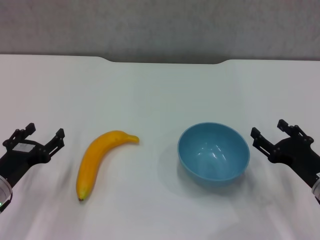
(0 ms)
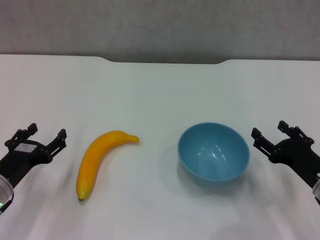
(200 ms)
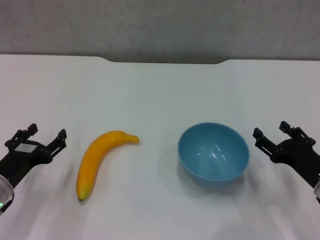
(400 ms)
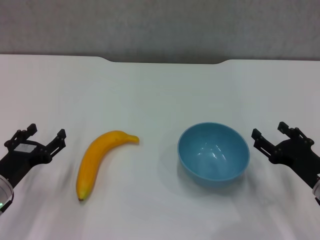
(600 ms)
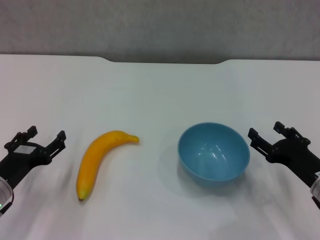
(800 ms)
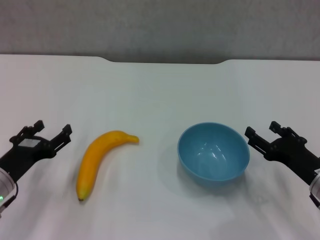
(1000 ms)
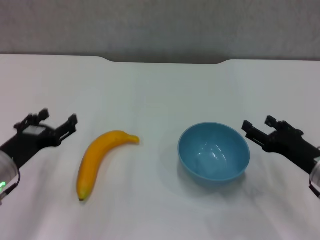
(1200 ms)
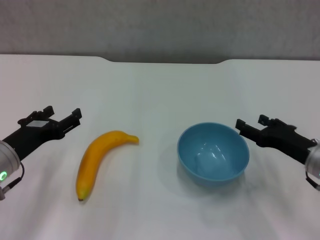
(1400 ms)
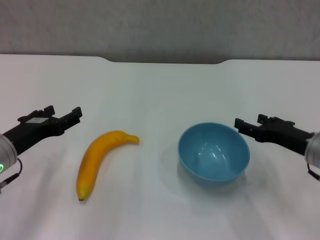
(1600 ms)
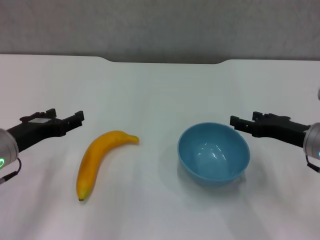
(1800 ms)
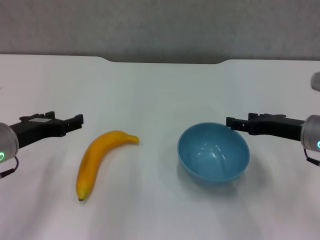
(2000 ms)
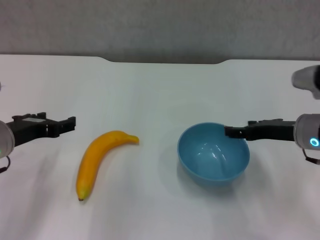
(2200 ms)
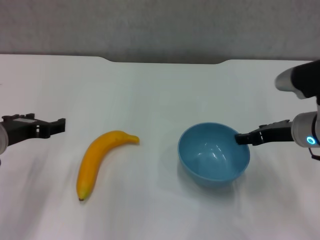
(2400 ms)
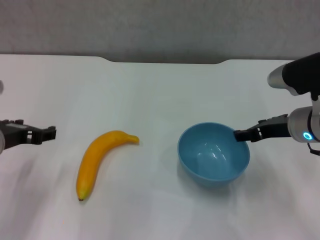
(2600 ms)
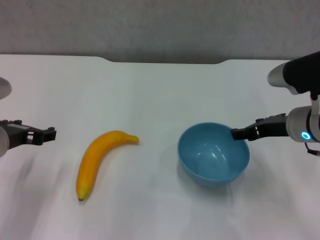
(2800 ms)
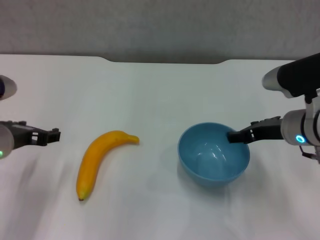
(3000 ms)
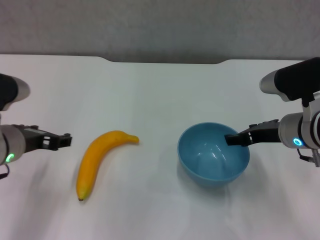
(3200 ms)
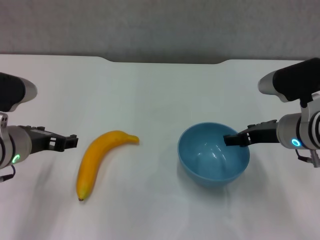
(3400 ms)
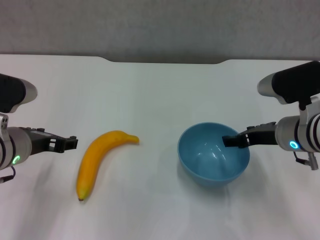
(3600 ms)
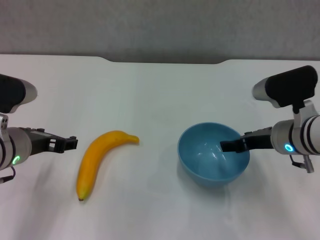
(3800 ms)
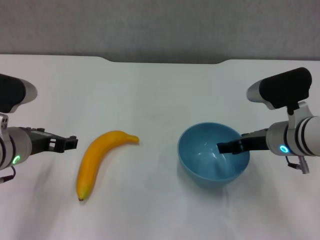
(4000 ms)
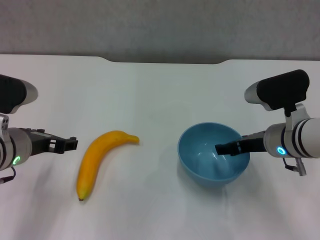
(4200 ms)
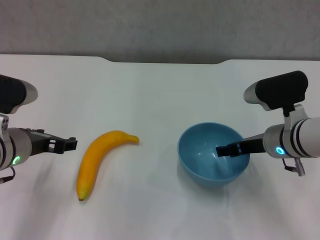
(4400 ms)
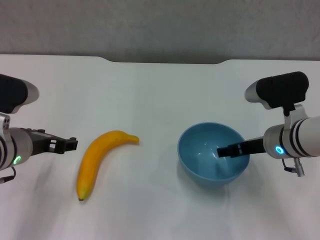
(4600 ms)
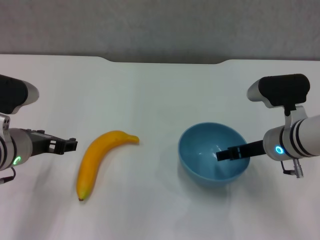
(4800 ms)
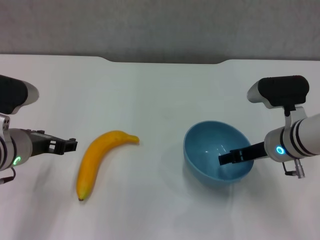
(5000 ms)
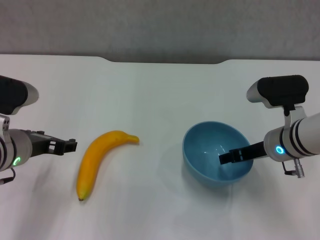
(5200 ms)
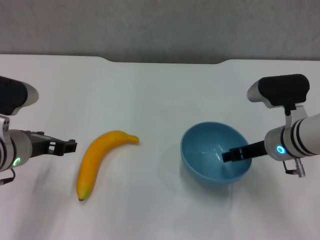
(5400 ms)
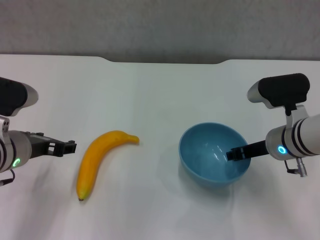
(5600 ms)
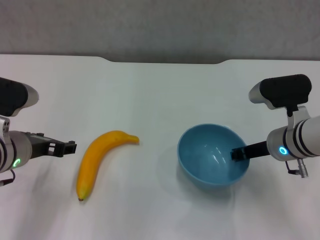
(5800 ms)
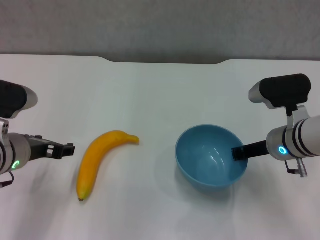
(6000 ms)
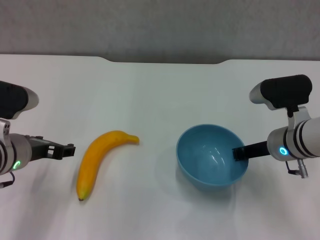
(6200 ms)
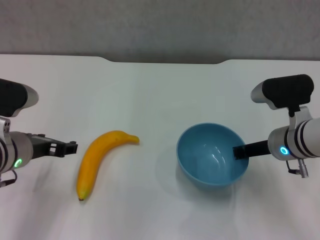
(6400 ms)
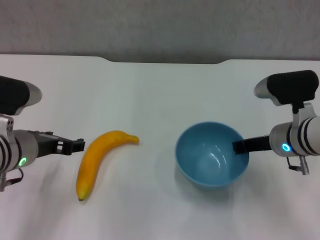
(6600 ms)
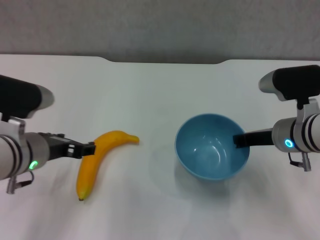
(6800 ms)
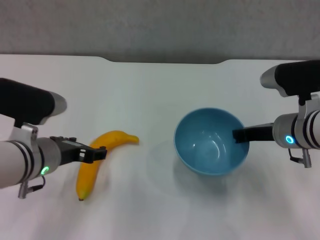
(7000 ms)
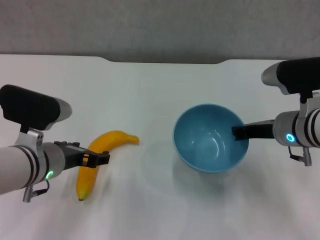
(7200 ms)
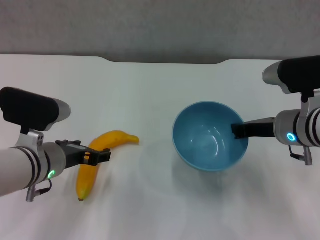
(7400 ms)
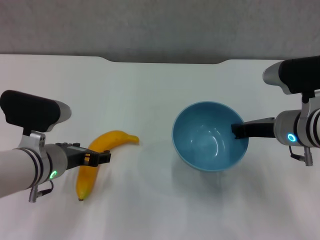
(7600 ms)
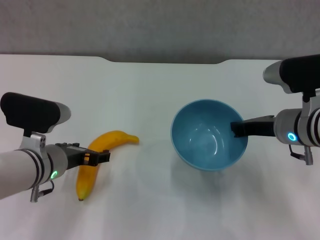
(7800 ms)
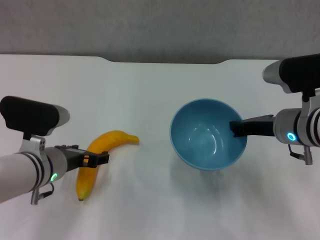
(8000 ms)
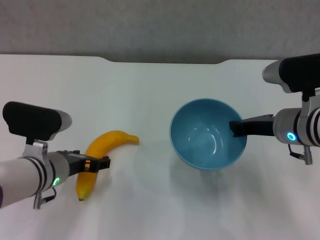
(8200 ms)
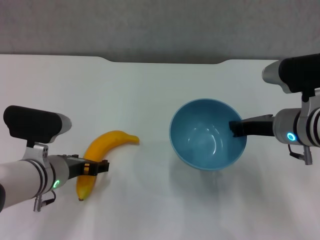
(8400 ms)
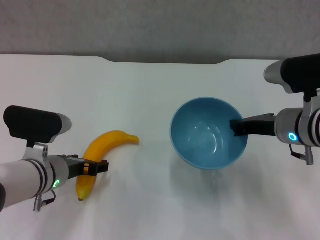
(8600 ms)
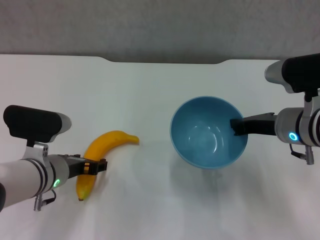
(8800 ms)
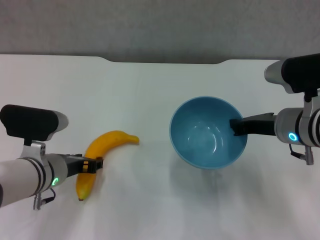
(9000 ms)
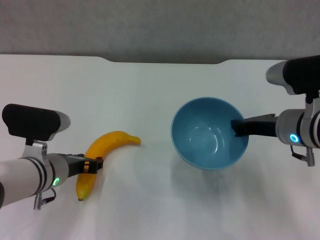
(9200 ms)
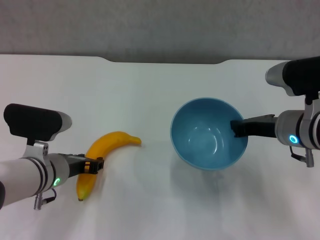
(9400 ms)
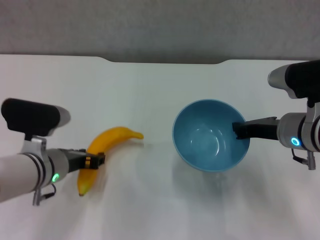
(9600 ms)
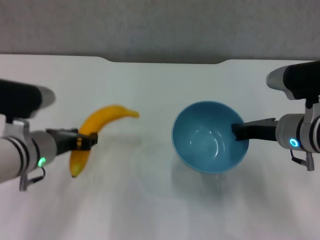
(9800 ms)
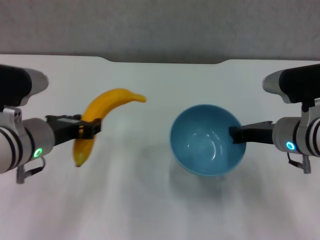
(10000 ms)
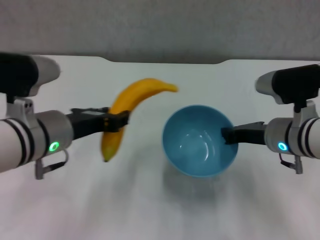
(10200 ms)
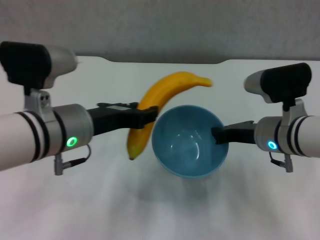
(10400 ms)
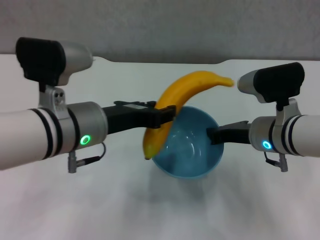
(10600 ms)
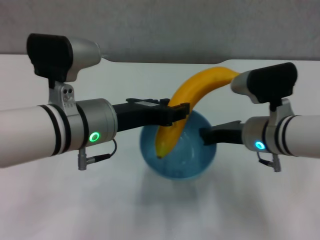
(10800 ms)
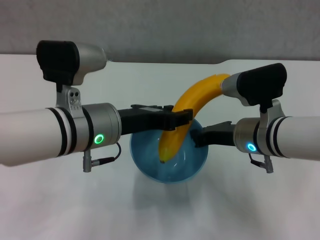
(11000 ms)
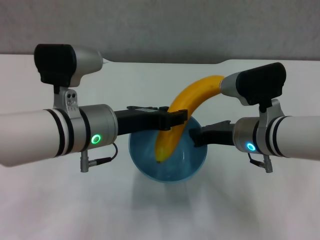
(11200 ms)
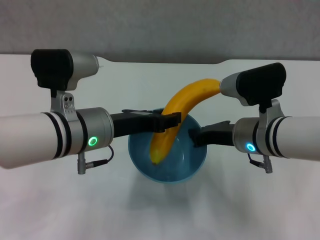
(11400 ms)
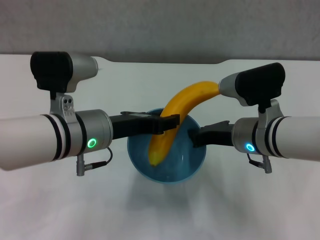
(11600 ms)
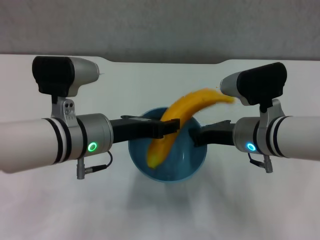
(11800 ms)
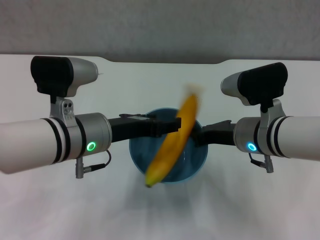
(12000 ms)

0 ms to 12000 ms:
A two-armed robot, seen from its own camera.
Step, 0 ms to 6400 ms: Grasp the blue bowl with right gripper.
Step, 6600 ms to 7800 ms: Lift the blue bowl with right gripper.
Step, 8000 ms to 9400 ms: Grasp the banana with left gripper.
0 ms to 1600 ms: The right gripper shifts approximately 5 cm forward, while the left gripper is displaced upward by roughly 5 cm.
1600 ms to 3000 ms: The right gripper moves approximately 5 cm.
3000 ms to 4400 ms: The grippers make only small movements.
4400 ms to 6000 ms: The right gripper closes.
6000 ms to 7600 ms: The left gripper shifts by about 5 cm.
7600 ms to 9000 ms: The grippers move only a little.
9000 ms to 10400 ms: The left gripper moves upward, some 10 cm, and closes its fingers.

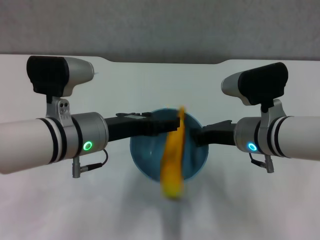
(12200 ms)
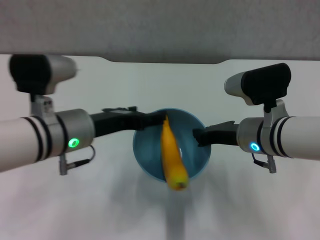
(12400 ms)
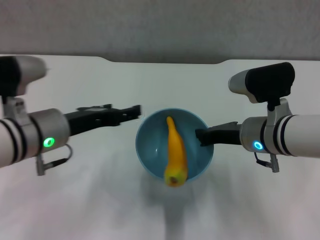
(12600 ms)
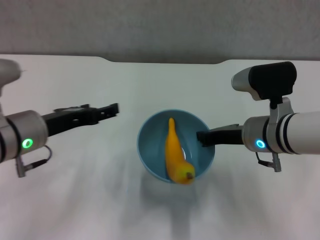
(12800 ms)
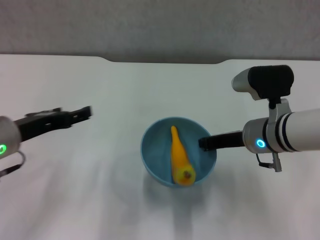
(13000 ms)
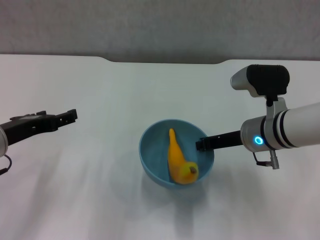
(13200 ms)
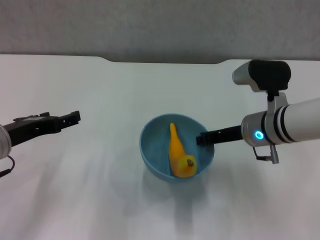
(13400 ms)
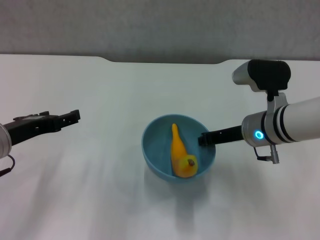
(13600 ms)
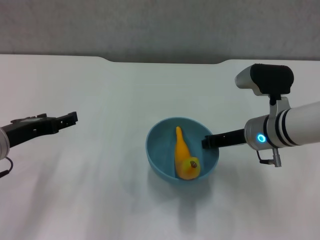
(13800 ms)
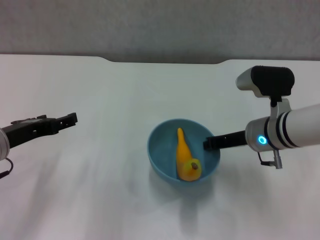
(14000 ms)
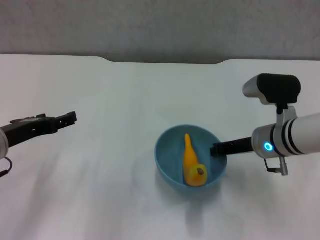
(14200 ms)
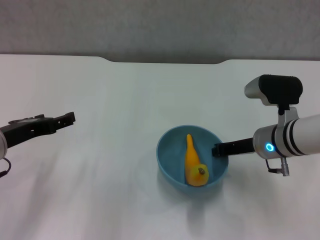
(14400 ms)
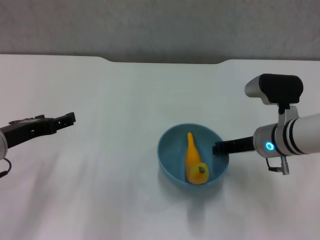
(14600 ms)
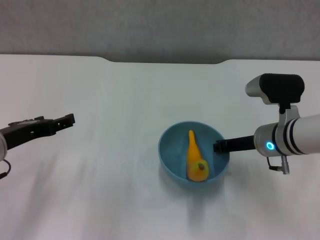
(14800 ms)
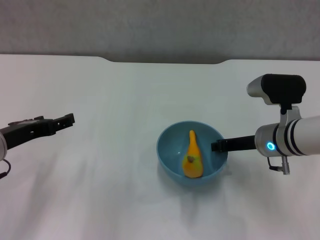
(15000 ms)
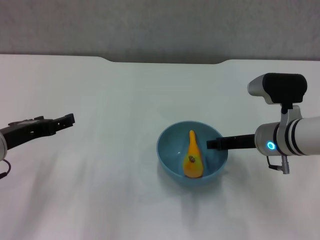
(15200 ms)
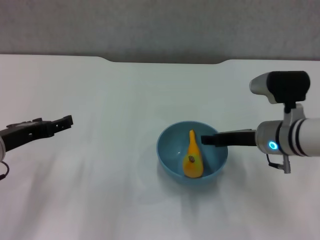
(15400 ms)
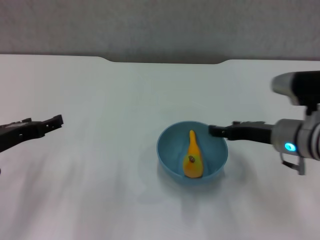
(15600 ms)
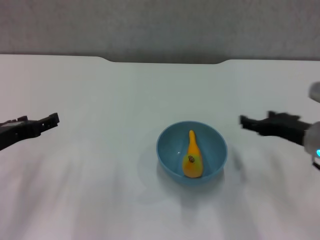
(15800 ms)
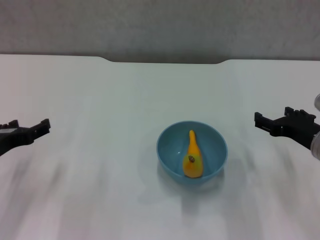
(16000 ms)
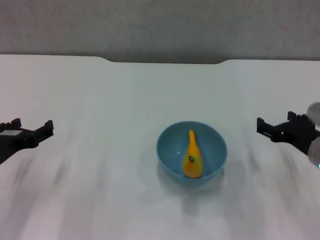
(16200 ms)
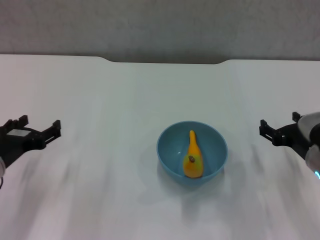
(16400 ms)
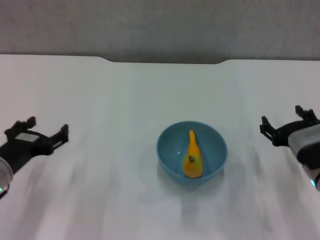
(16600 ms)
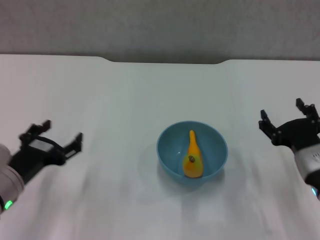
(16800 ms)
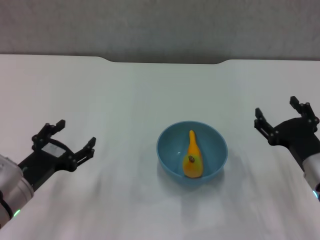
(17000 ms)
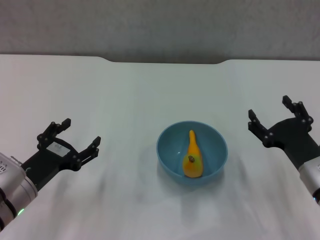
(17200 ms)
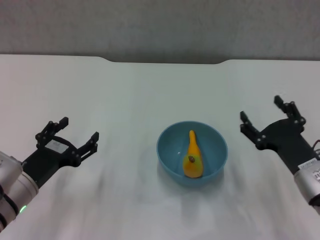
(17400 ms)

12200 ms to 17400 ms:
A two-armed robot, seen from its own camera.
Step, 12400 ms to 15600 ms: Place the bowl on the table with right gripper.
12200 ms to 14000 ms: The left gripper goes about 15 cm to the left, and opens up; the right gripper shifts by approximately 5 cm.
14000 ms to 15600 ms: The right gripper moves roughly 5 cm, and opens its fingers.
15600 ms to 17400 ms: The left gripper shifts roughly 10 cm downward, while the right gripper moves backward and downward, some 10 cm.

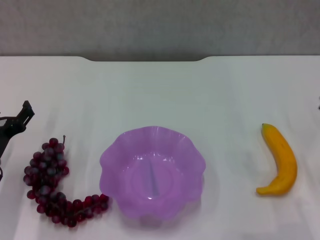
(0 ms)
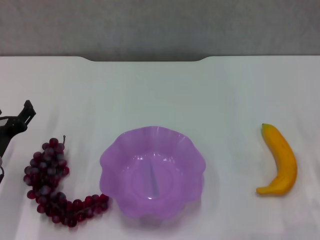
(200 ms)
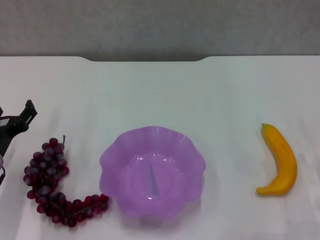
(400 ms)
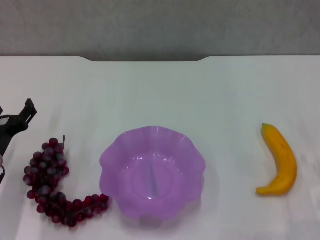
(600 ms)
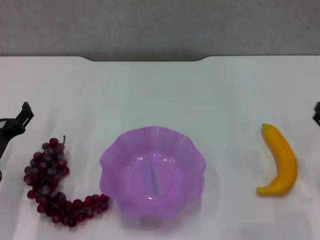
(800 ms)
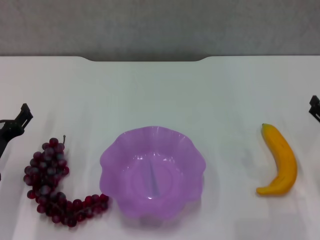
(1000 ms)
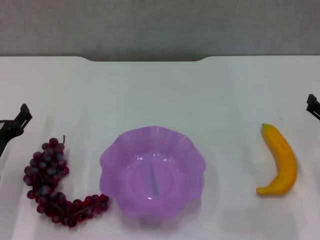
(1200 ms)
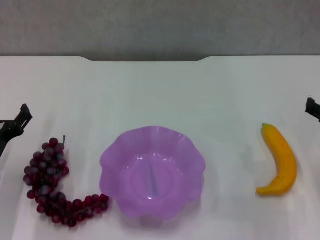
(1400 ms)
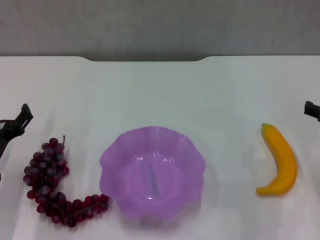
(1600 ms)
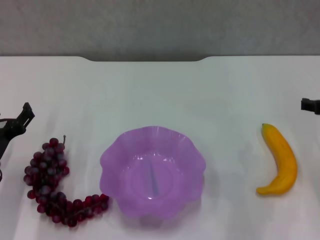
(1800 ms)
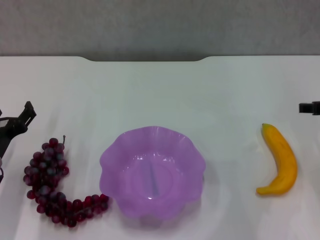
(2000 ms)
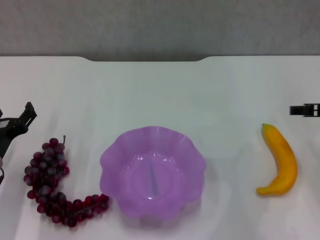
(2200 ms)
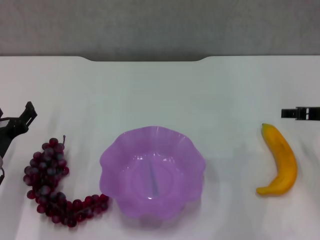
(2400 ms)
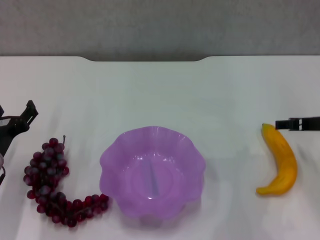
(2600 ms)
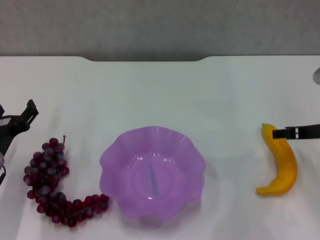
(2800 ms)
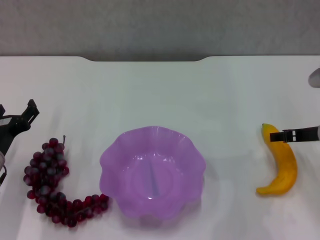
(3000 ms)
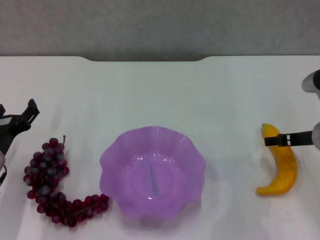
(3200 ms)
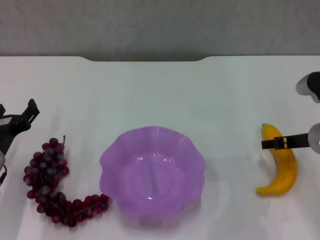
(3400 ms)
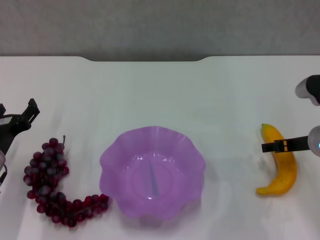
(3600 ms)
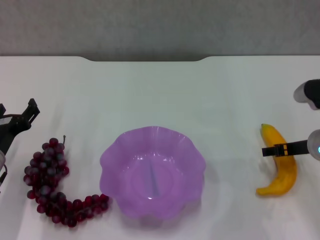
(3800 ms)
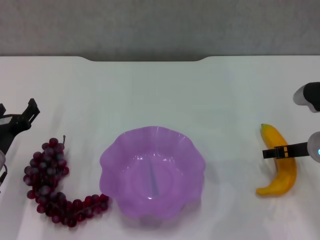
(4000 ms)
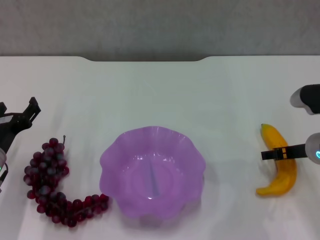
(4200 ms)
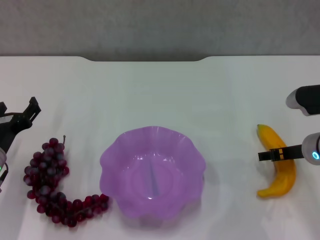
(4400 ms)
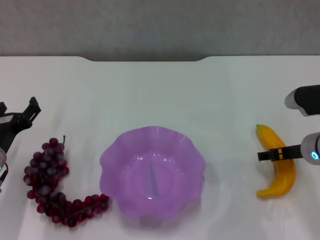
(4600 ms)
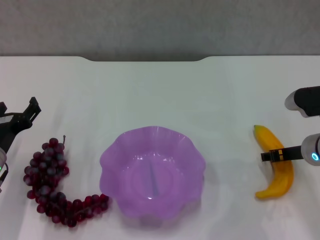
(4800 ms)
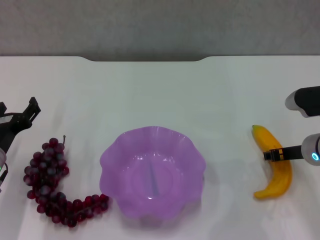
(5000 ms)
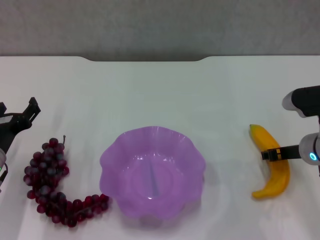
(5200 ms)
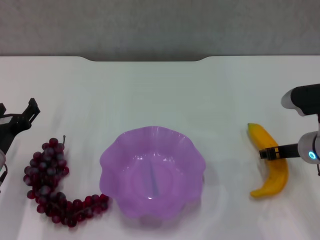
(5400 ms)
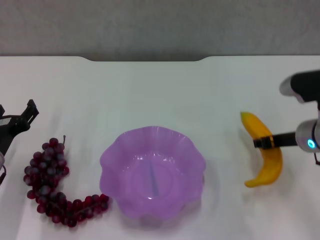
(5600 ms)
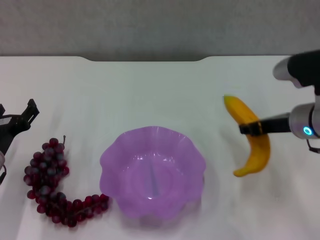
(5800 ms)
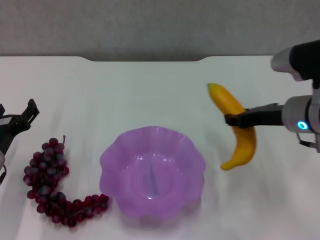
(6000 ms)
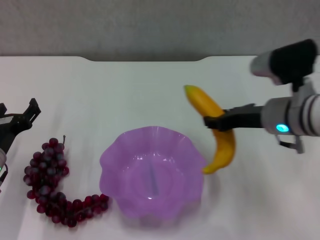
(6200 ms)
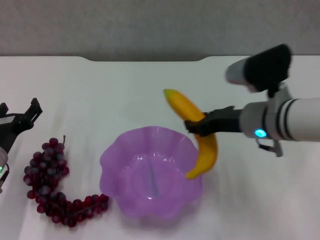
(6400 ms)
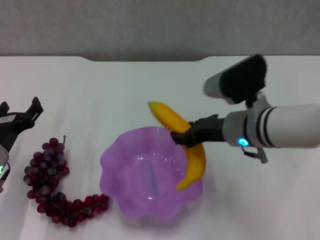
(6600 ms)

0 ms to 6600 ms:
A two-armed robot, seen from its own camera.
Step, 0 ms to 5000 ms: Grasp the banana with right gripper.
1600 ms to 3200 ms: The right gripper shifts by approximately 5 cm.
3200 ms to 5000 ms: The right gripper closes.
5000 ms to 6600 ms: The right gripper heads to the left and upward, covering some 15 cm, and closes.
